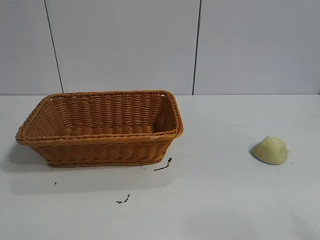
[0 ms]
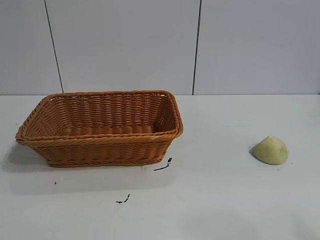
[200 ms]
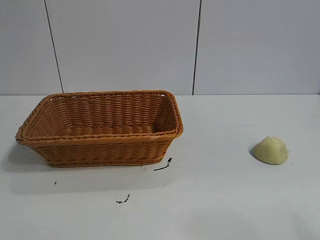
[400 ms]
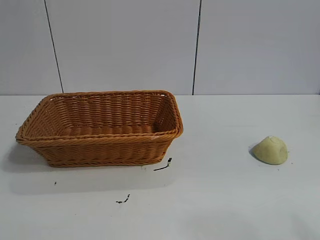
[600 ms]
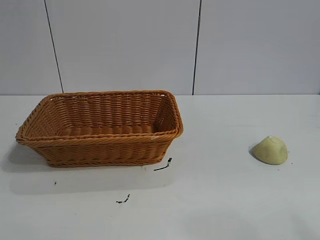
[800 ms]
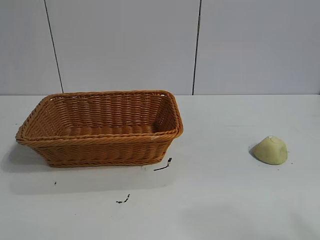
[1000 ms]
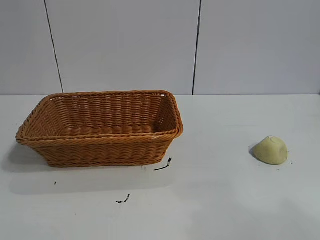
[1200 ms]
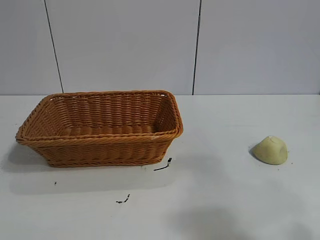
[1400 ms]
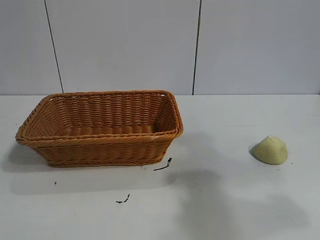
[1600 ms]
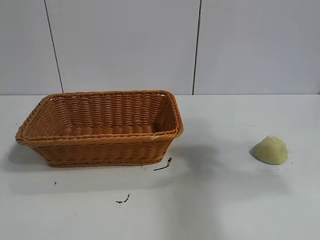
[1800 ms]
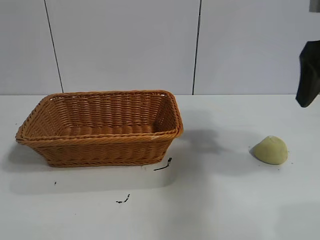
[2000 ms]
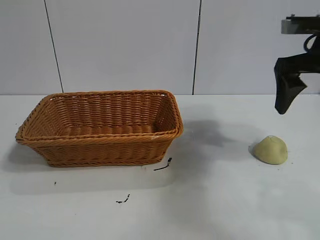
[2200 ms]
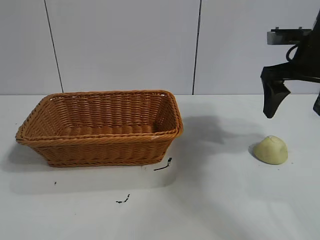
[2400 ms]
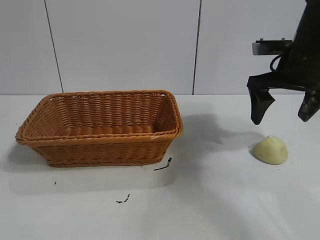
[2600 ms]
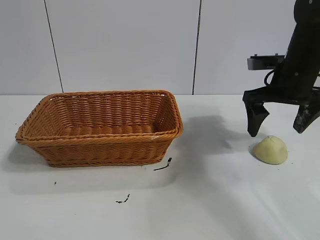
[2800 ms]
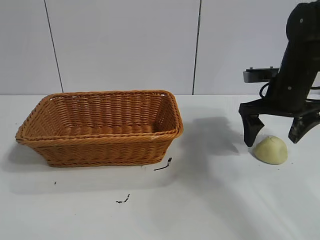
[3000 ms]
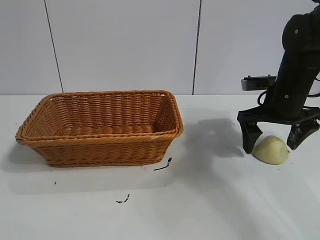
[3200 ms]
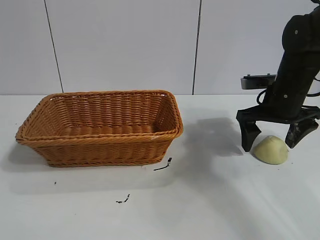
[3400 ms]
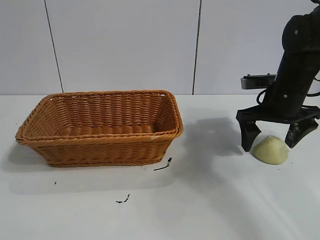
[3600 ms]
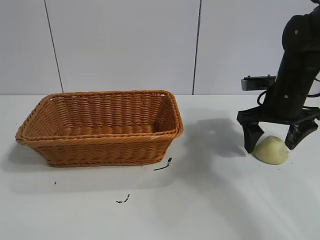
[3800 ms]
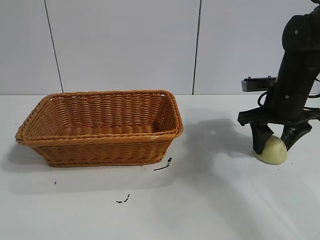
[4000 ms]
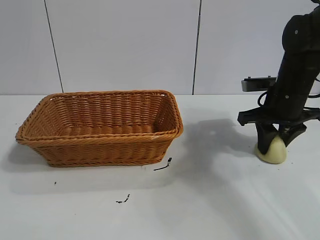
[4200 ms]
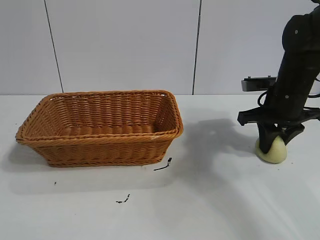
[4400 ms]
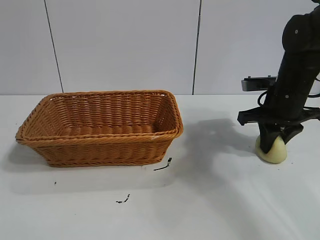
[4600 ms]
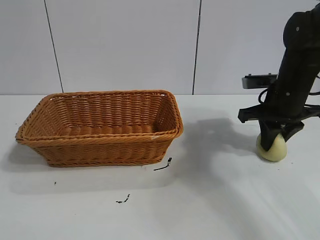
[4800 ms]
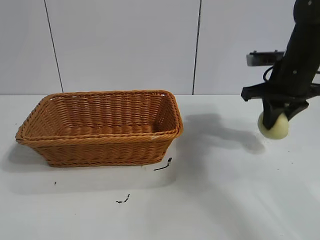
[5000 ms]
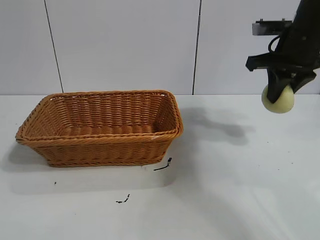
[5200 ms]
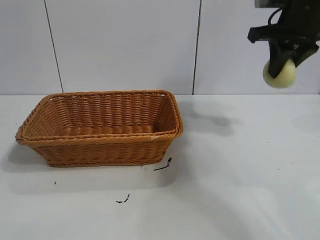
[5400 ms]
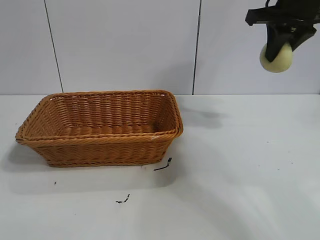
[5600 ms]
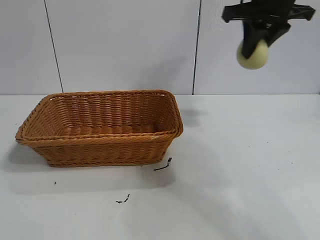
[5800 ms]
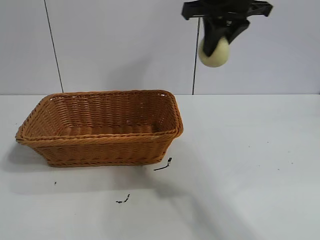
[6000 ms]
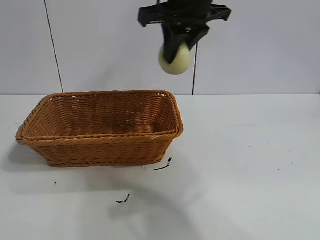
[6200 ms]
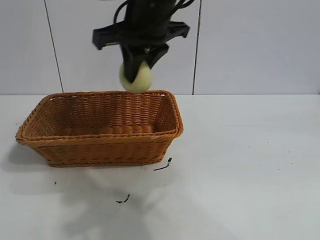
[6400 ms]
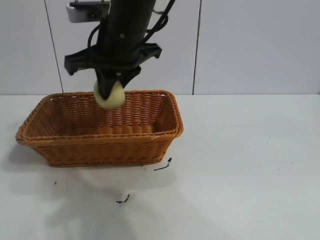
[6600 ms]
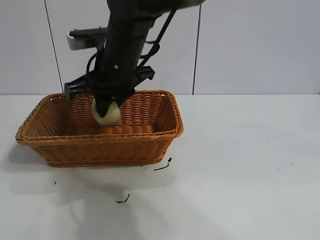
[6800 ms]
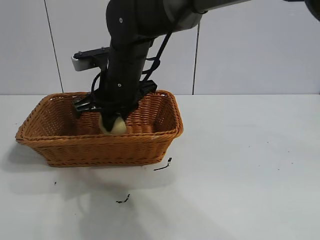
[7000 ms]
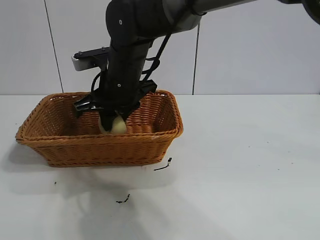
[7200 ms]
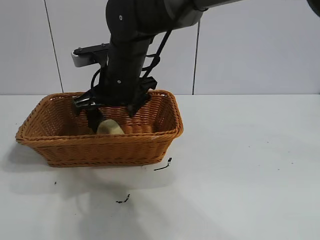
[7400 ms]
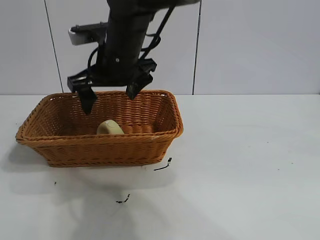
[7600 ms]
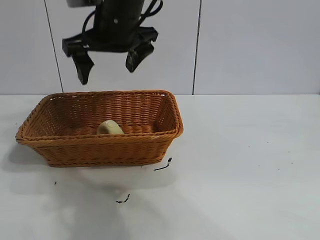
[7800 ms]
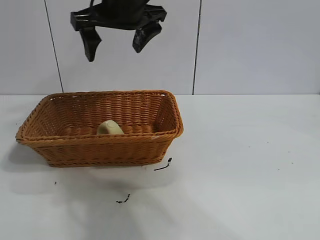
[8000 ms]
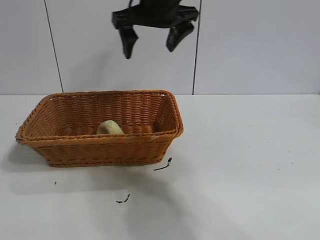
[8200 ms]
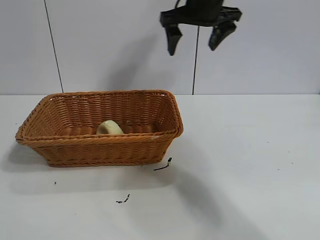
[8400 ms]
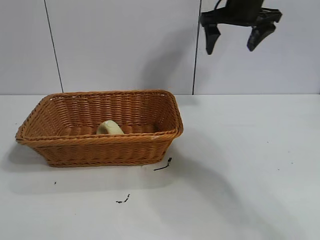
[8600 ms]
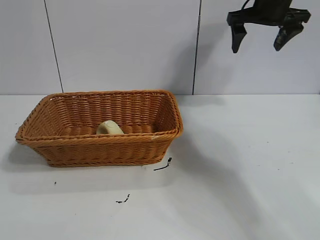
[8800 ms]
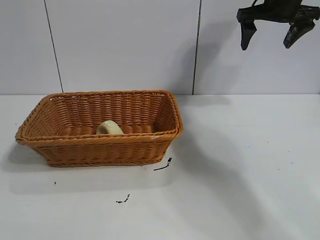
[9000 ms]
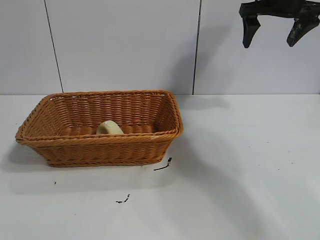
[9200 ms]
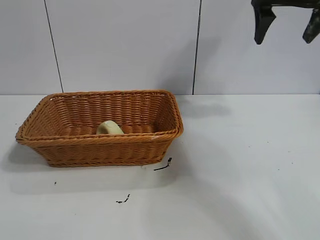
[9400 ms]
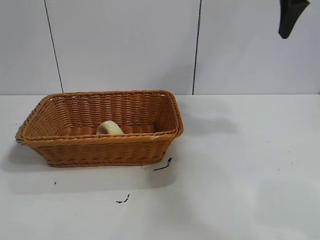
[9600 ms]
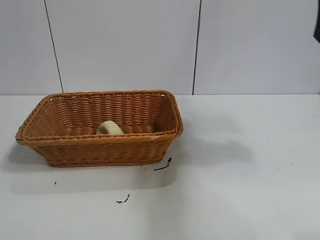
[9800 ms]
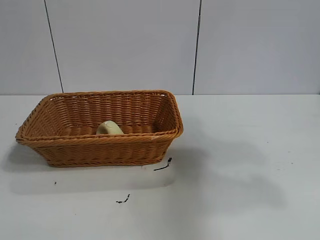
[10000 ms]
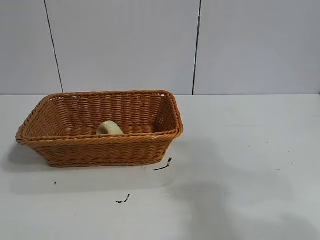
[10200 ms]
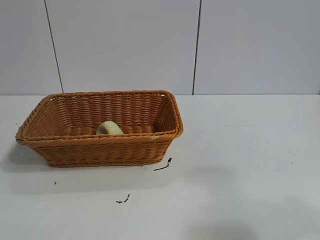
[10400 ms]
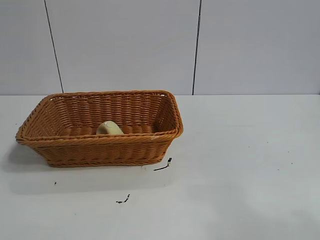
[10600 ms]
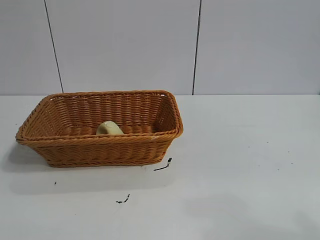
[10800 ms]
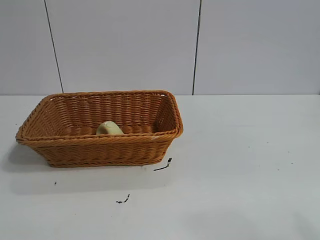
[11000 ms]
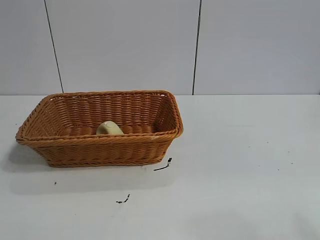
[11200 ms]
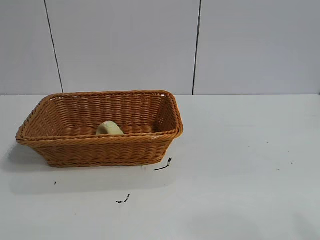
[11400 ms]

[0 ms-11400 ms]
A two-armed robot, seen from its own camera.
Task of the whole recording: pick up the egg yolk pastry and put it into the basket.
Step, 1000 ms to 4400 ms: Grasp egg yolk pastry with right gripper.
Step, 4600 ms to 7200 ms: Place the egg yolk pastry in the basket with right gripper.

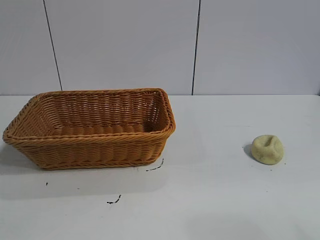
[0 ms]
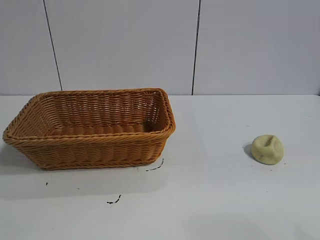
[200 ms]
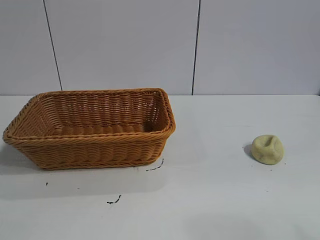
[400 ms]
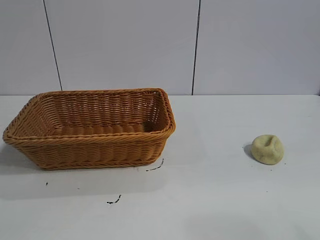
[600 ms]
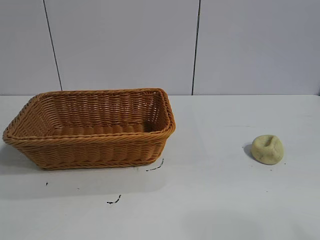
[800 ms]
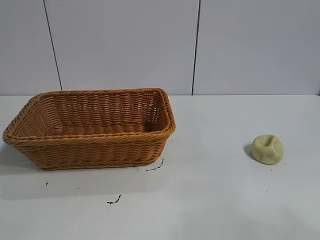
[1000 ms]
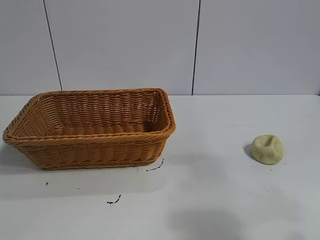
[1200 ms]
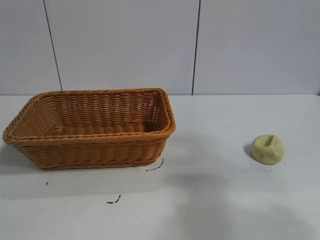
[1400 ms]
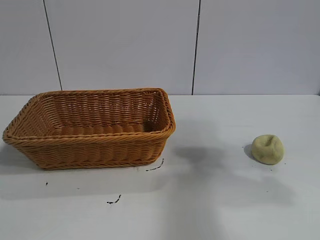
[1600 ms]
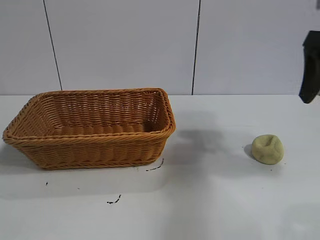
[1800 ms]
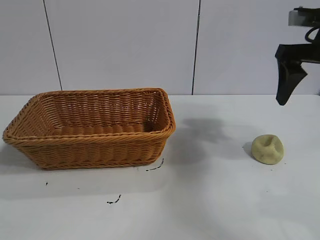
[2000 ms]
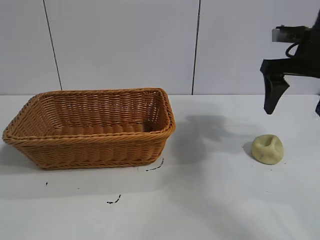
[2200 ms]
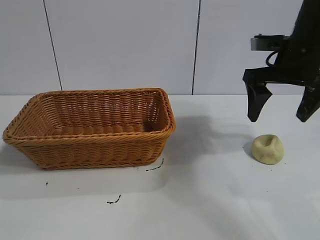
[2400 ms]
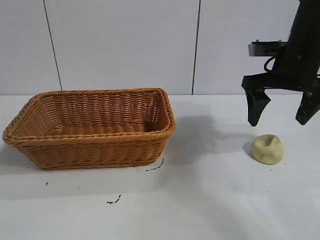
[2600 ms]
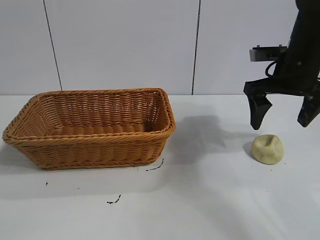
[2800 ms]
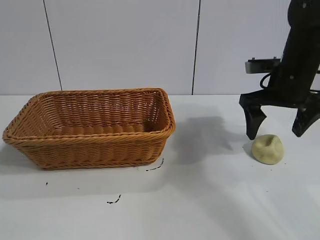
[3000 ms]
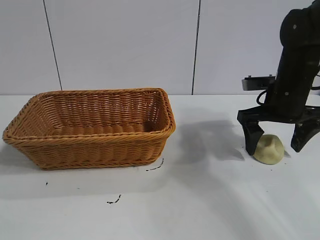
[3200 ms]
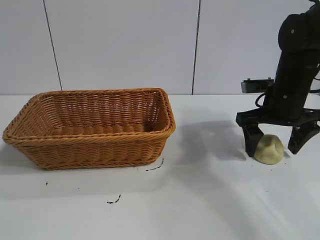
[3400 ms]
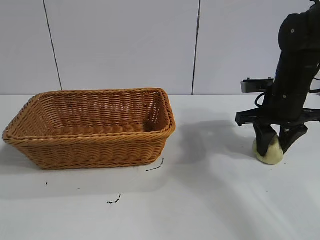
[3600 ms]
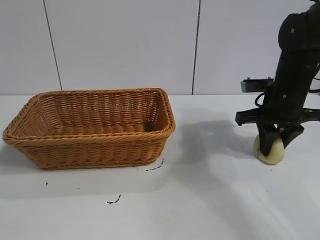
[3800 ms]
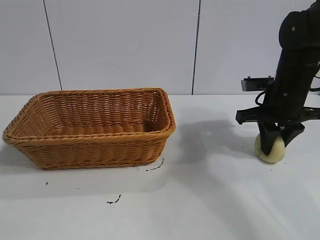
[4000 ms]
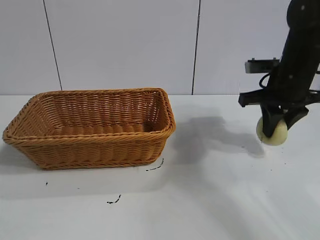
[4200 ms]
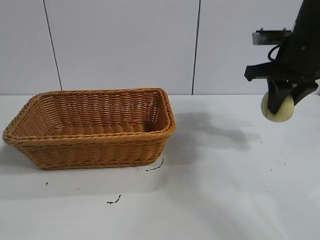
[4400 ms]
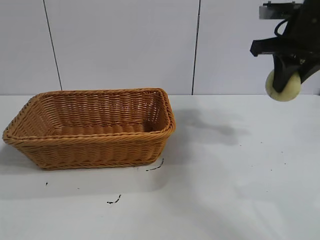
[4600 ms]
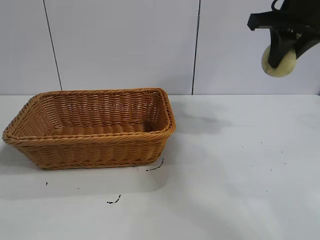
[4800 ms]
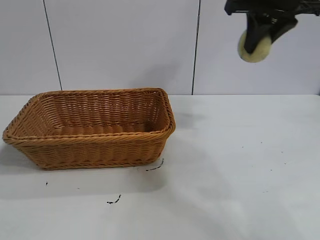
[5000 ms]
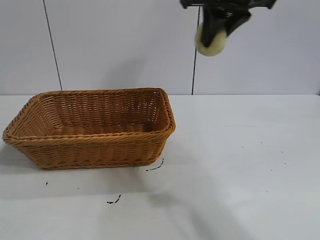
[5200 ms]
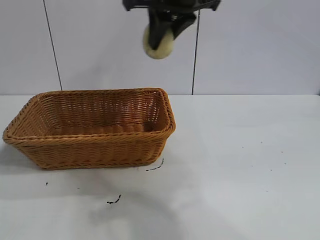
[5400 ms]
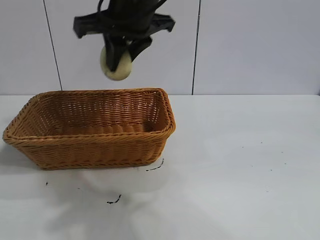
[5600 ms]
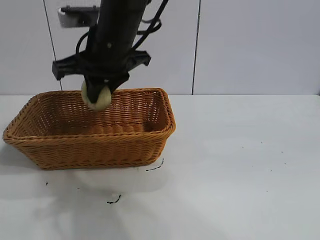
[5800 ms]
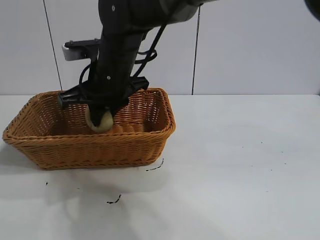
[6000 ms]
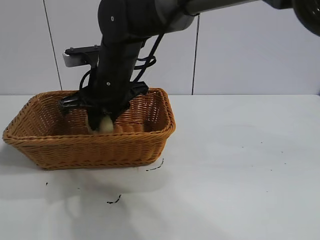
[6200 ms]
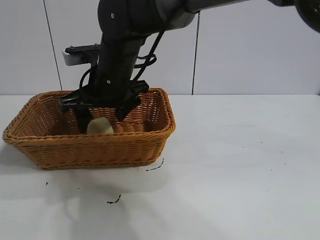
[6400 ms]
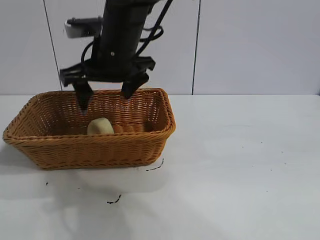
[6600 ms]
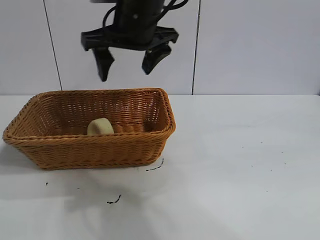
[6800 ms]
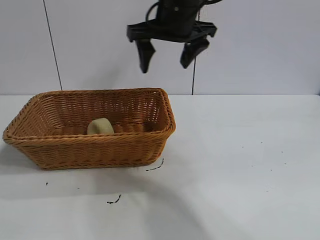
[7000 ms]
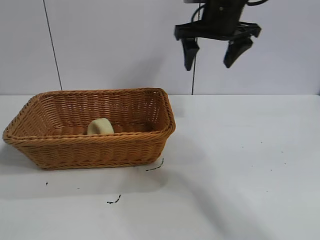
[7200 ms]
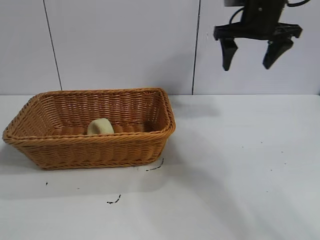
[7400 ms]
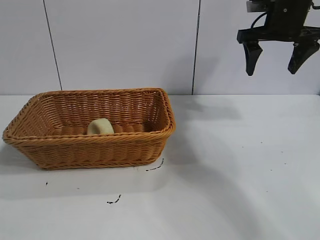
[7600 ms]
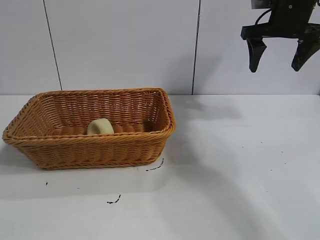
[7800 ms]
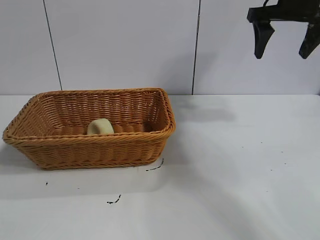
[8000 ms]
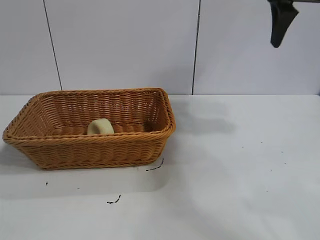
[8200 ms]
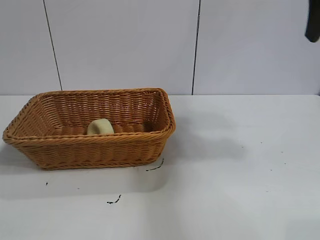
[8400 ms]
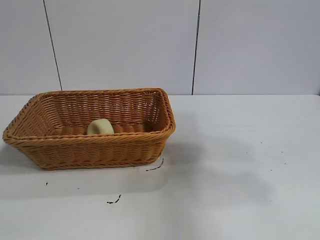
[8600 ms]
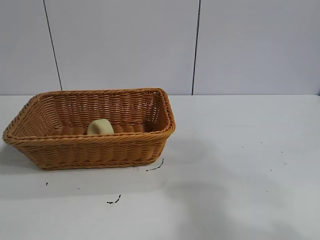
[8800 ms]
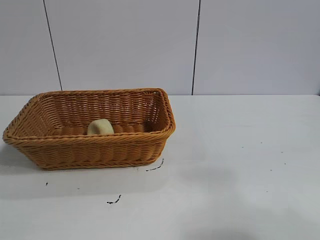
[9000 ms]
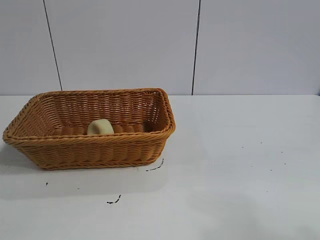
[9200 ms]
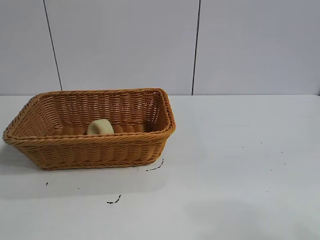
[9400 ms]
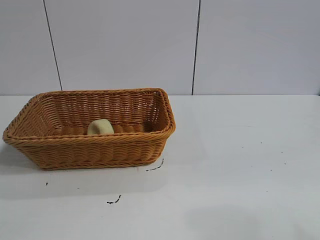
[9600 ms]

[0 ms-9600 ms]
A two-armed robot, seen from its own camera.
Task of the whole recording: pick up the egg yolk pastry and put it into the basket.
Step, 800 ms to 3600 ms: Grasp egg yolk pastry with right gripper.
Step, 4000 ms to 6400 ms: Place the egg yolk pastry in the basket with right gripper.
